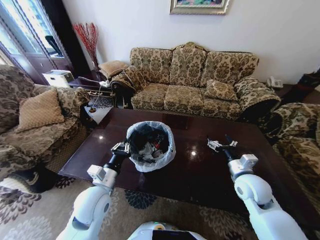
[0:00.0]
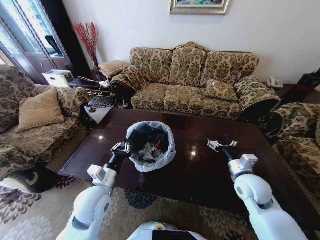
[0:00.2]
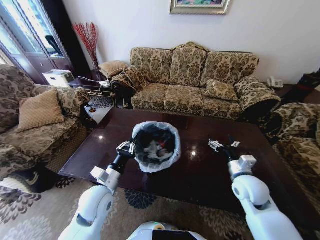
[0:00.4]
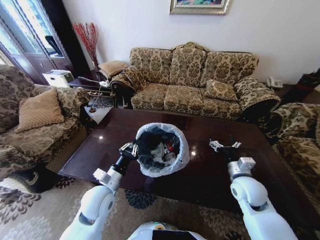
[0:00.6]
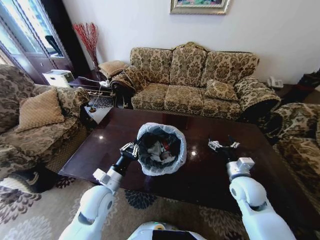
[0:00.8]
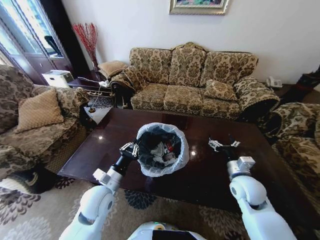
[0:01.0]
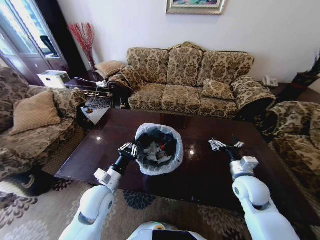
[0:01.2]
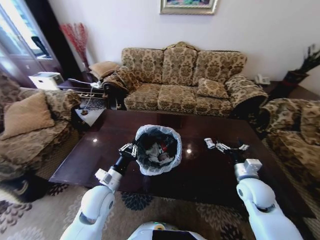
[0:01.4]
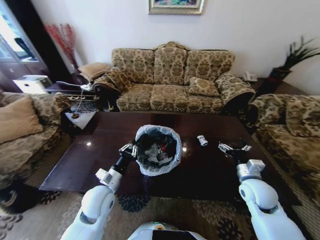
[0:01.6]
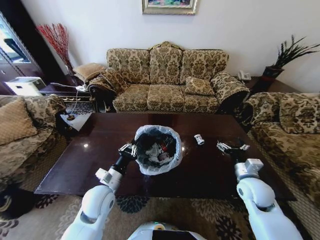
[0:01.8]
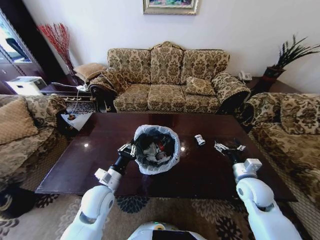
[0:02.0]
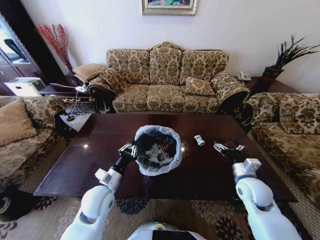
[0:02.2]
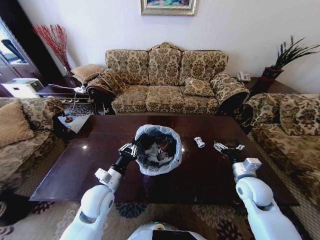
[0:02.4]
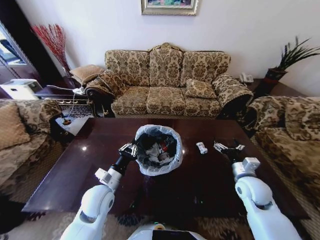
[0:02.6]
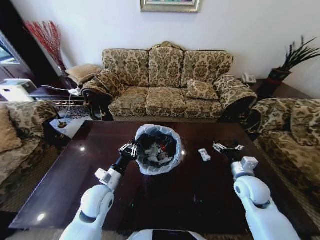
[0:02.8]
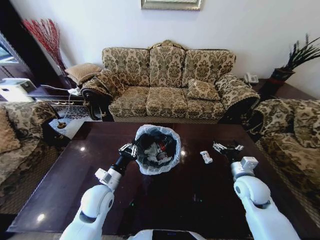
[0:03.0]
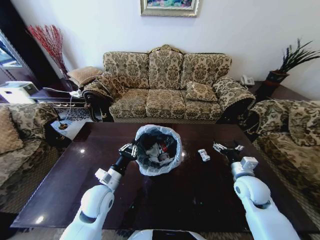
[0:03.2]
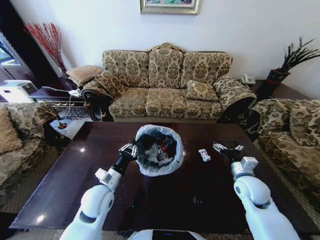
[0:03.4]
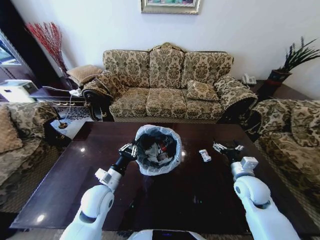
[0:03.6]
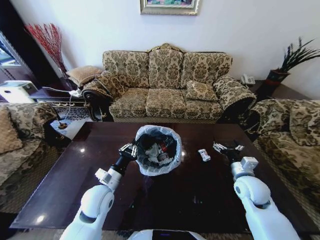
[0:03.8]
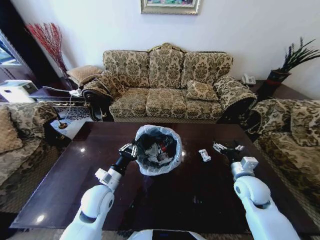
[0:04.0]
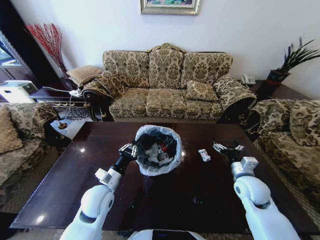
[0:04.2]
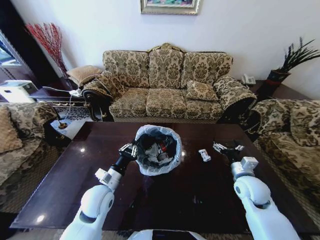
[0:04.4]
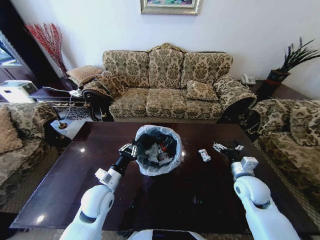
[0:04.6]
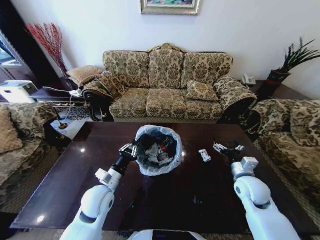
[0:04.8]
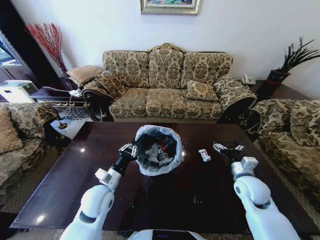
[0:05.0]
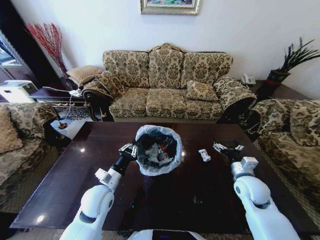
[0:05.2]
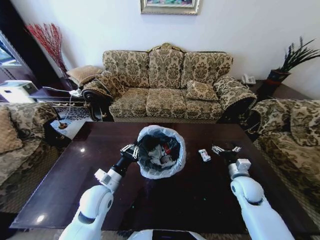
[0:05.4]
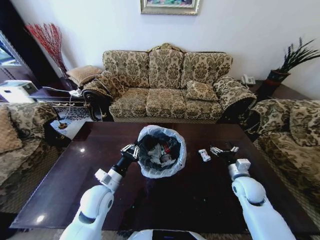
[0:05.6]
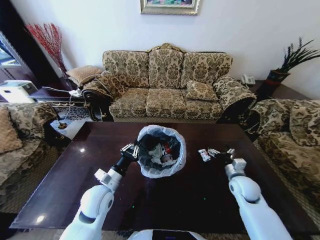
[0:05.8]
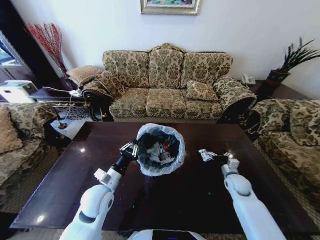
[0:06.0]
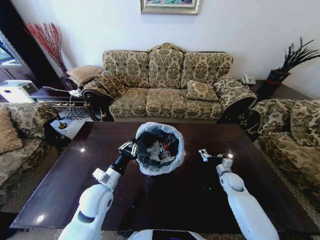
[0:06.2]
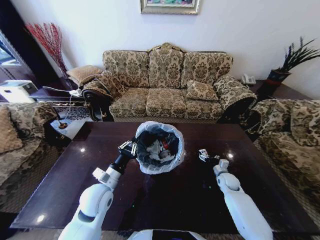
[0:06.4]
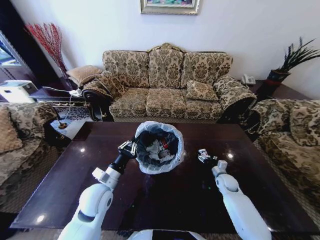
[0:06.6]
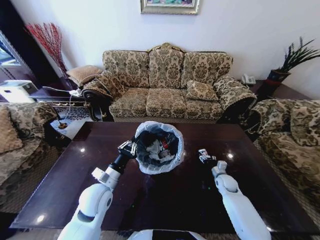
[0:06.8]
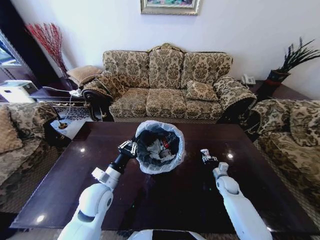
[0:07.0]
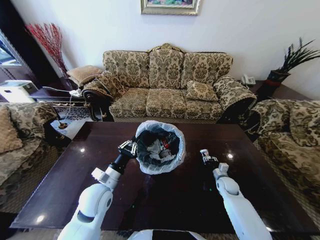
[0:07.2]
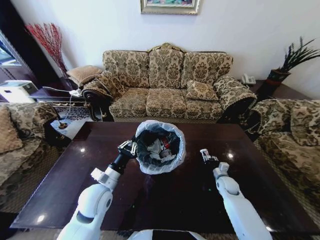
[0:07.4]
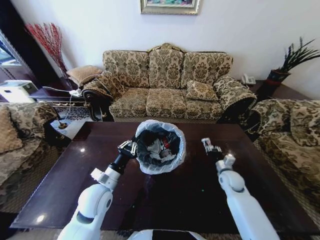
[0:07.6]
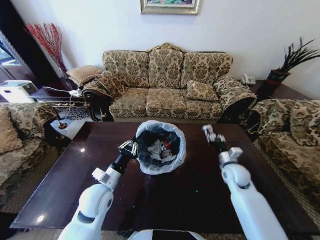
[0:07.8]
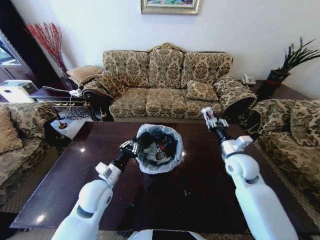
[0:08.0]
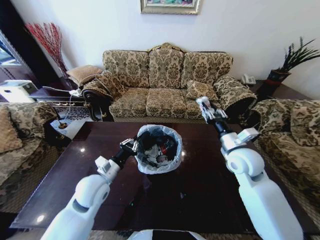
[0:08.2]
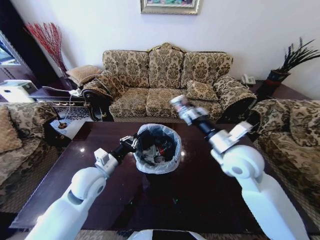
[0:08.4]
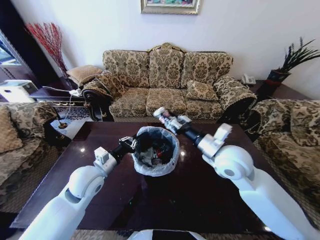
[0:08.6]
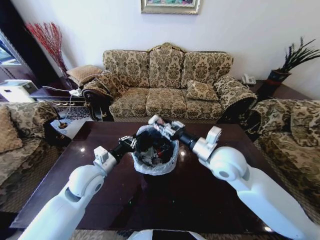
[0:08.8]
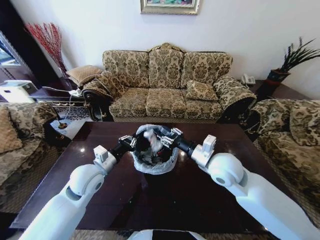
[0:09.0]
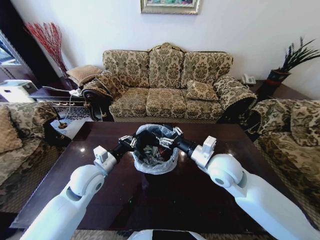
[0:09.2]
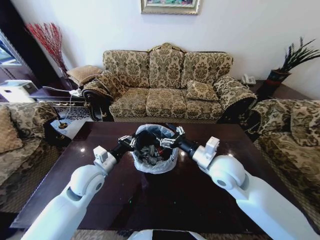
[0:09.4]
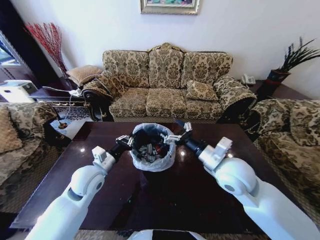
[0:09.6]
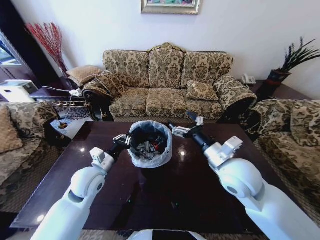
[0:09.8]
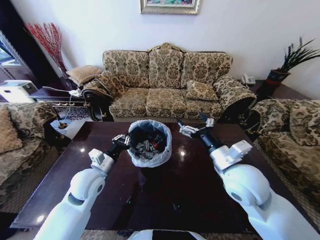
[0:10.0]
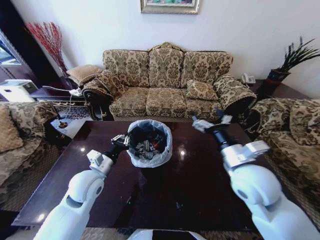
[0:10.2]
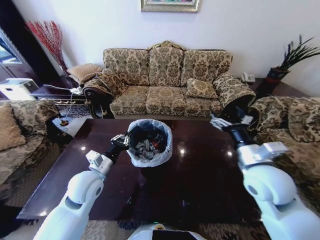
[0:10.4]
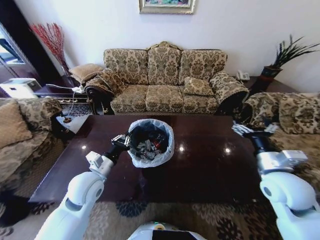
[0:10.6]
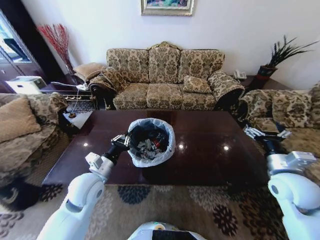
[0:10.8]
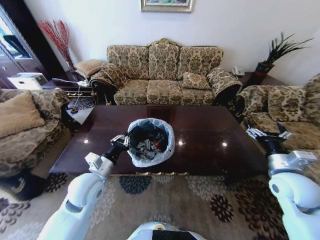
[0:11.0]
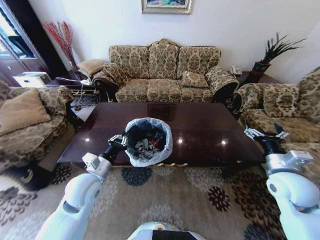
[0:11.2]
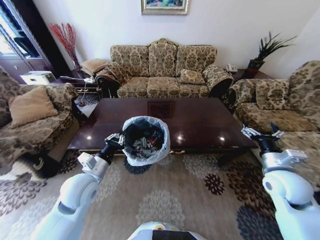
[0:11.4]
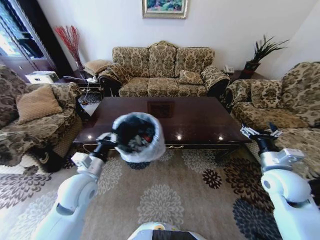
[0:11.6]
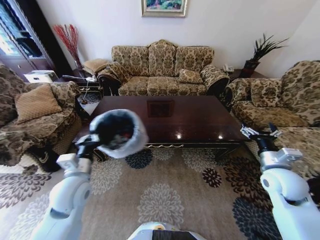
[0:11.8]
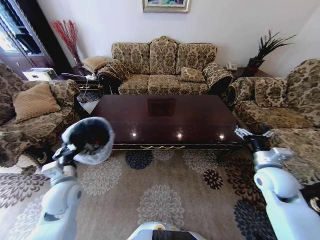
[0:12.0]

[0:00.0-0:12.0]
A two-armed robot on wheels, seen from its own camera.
Task of the whole recording: Move to the front of the table and place the trash on the table into the trash bin.
0:03.0 to 0:04.4: Both grippers stay about where they are.
0:04.4 to 0:06.0: The right gripper goes about 15 cm downward and forward.
0:06.0 to 0:07.6: The right gripper closes its fingers.
0:07.6 to 0:09.0: The right gripper goes some 30 cm upward and to the left. Meanwhile the left gripper travels upward by roughly 5 cm.
0:09.0 to 0:10.4: The right gripper moves to the right, about 10 cm, and opens.
0:10.4 to 0:12.0: The right gripper shifts approximately 15 cm to the right and downward. Meanwhile the left gripper goes some 5 cm to the left.

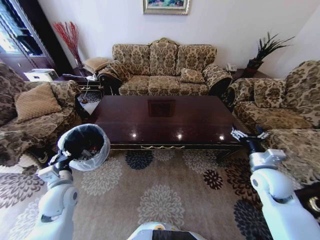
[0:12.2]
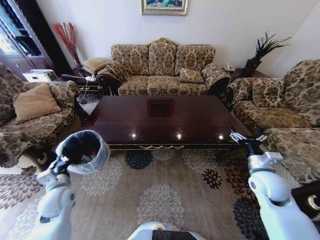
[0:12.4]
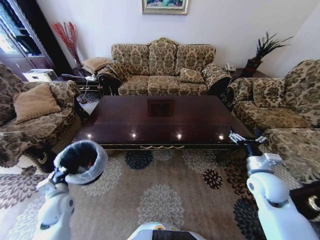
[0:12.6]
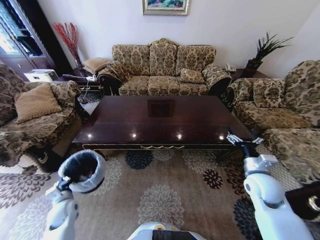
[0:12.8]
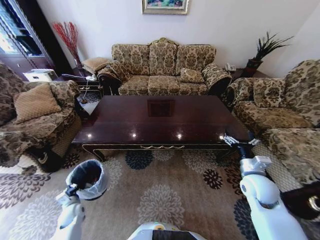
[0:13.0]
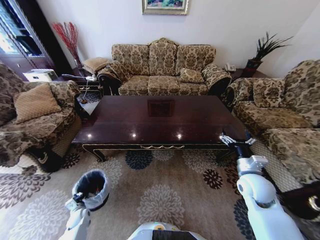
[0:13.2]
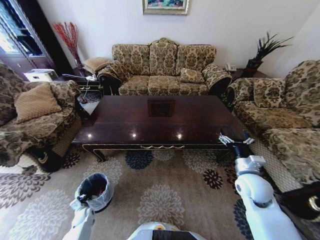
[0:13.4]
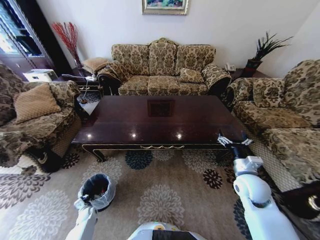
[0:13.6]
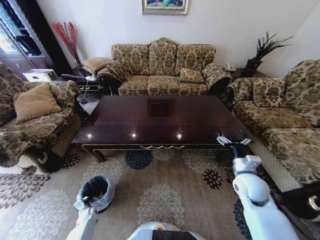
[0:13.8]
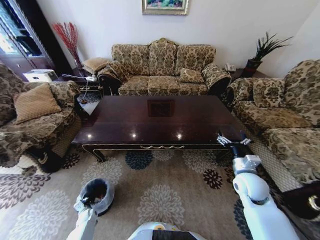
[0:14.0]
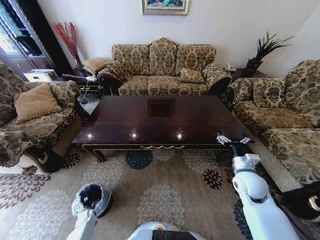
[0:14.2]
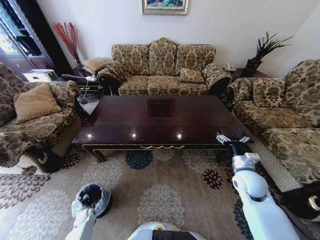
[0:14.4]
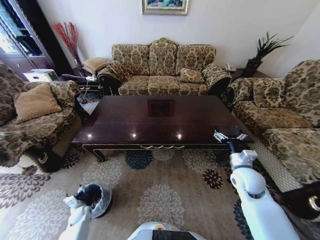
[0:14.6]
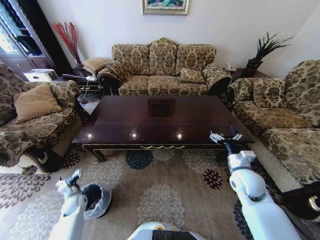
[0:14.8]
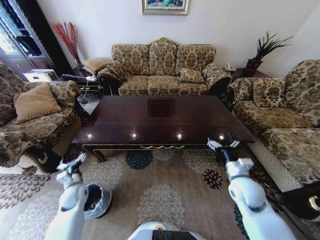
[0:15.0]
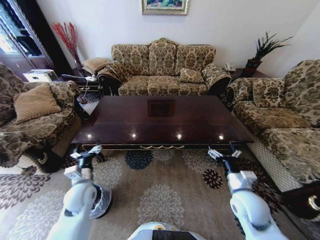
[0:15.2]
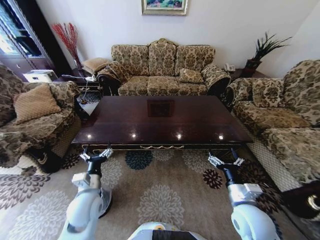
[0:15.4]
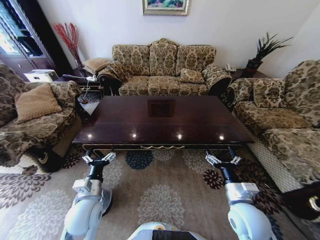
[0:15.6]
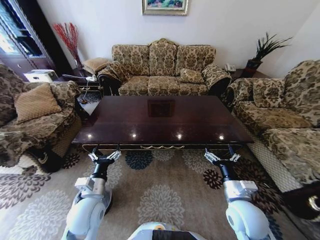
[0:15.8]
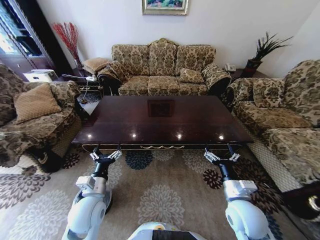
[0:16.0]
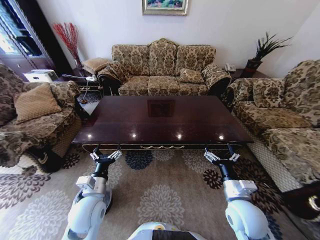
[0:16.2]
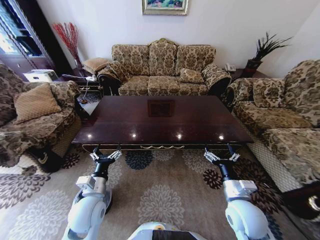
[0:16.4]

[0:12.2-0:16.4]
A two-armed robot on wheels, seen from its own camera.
Task of the whole recording: Move to the front of the table and place the trash on the table into the trash bin.
0:12.2 to 0:13.6: The left gripper travels downward by roughly 35 cm; the right gripper changes place by approximately 5 cm.
0:13.6 to 0:15.0: The left gripper moves upward, some 25 cm, and opens.
0:15.0 to 0:16.4: The left gripper shifts approximately 20 cm to the right, upward and backward. The right gripper is displaced backward by some 10 cm.
